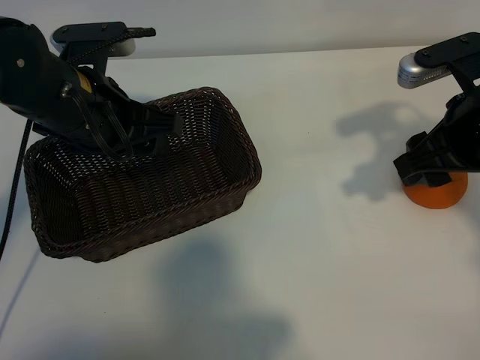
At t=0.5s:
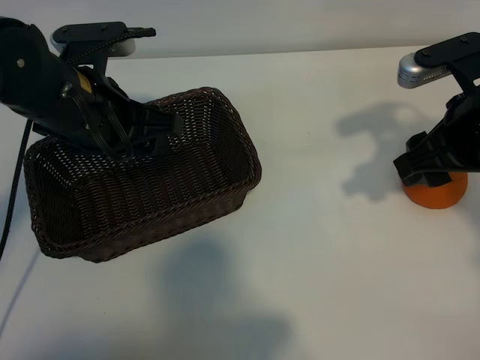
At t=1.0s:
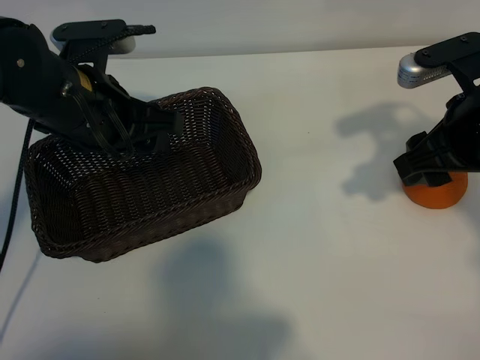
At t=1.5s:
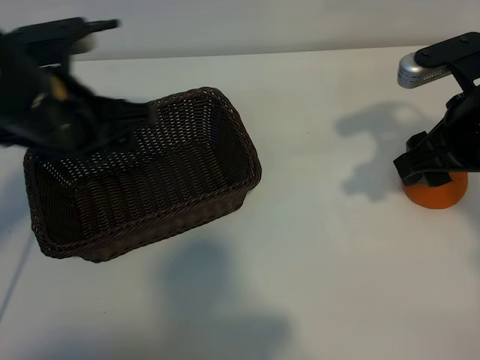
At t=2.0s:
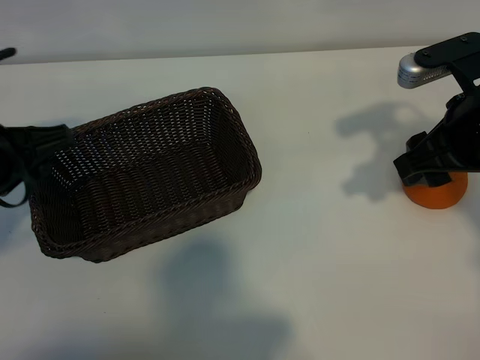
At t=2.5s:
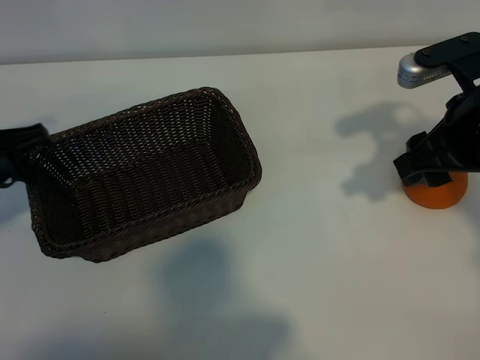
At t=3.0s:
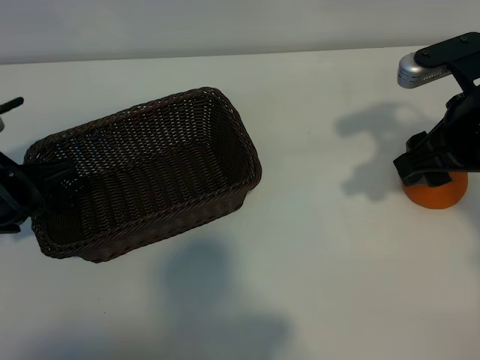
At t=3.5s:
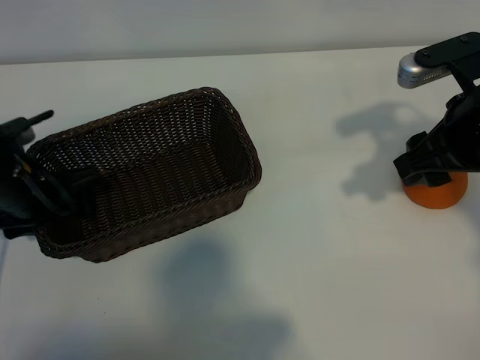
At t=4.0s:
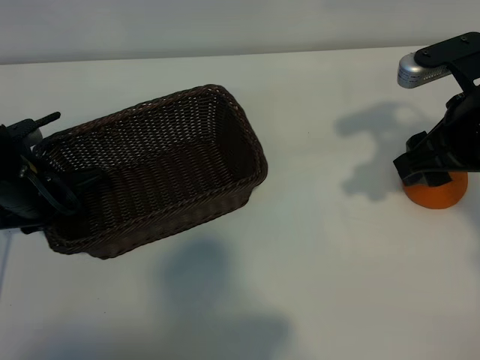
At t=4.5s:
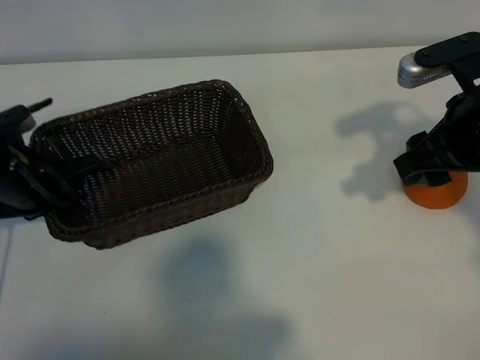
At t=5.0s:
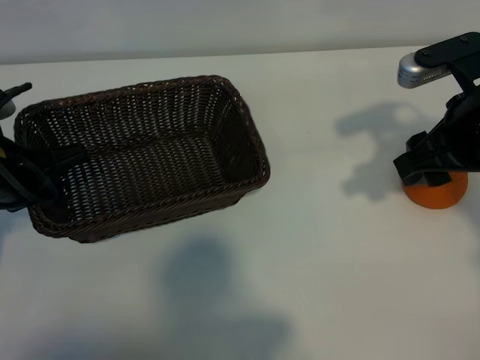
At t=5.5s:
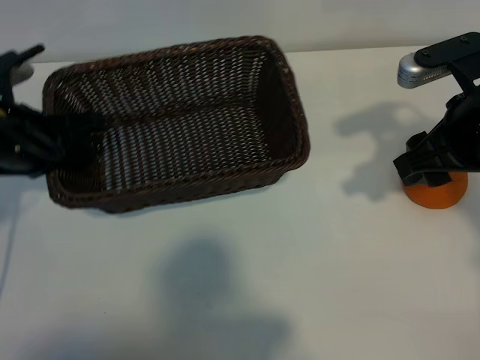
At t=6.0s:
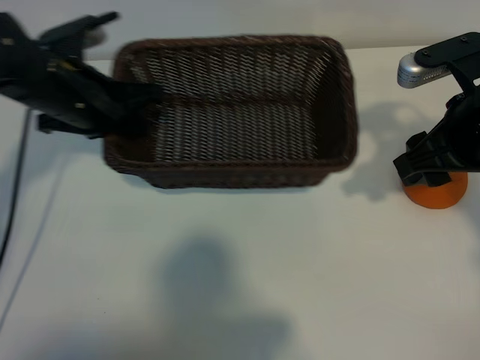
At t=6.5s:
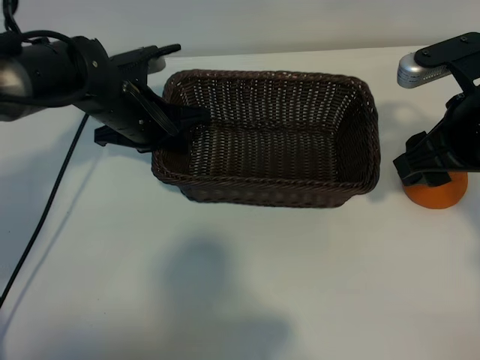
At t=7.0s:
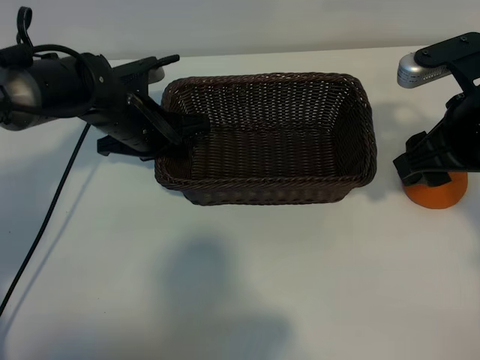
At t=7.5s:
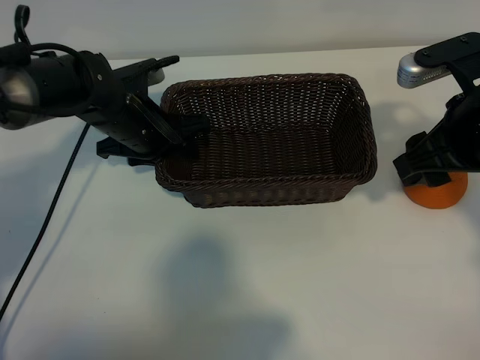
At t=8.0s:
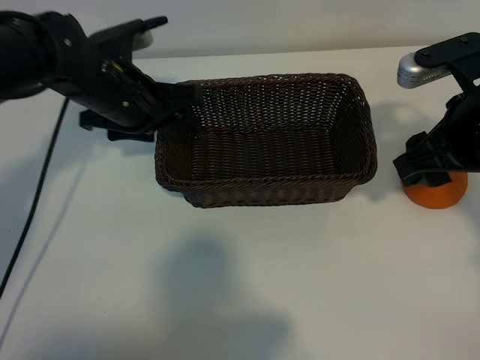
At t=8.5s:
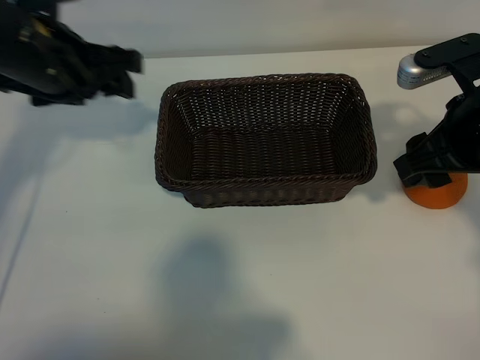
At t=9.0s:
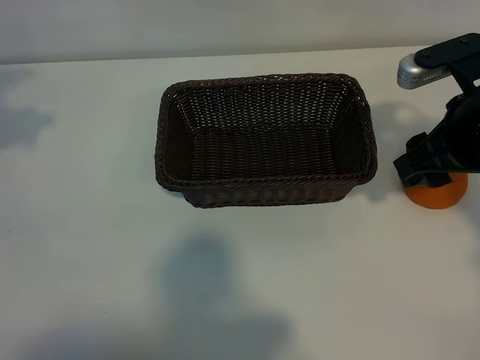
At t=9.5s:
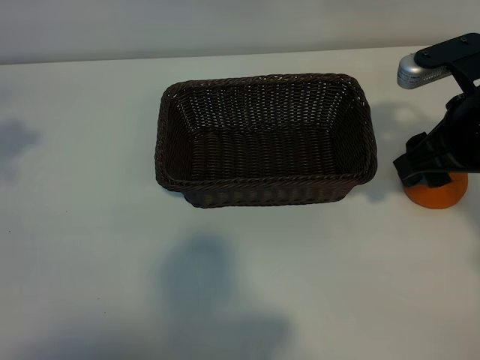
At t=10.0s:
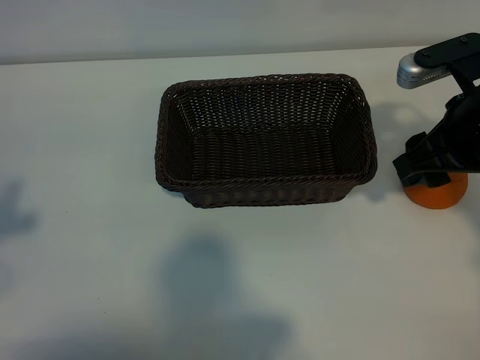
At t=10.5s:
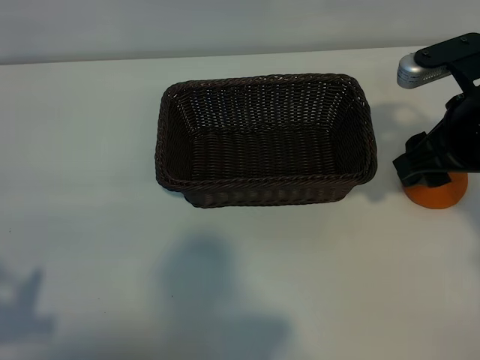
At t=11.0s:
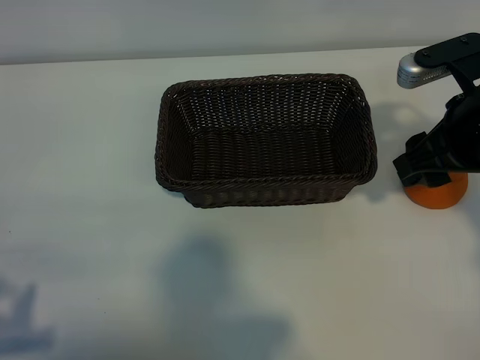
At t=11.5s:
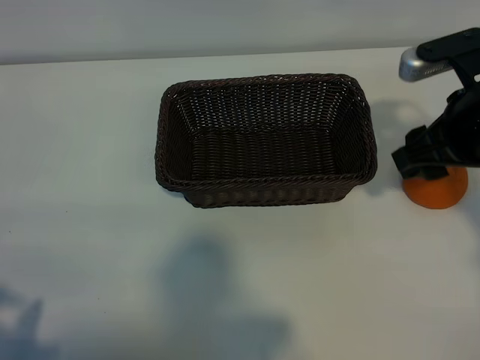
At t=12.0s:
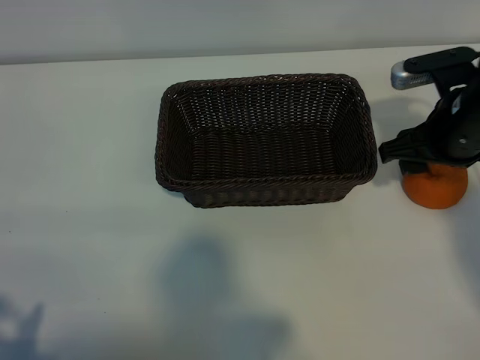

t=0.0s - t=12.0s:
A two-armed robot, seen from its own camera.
Task of the whole recording: pick up the orange and put it into the basket.
Step, t=1.0s - t=4.0s: Grasp the basket with left gripper.
Step, t=4.5s - t=7.0s: Place the basket in the center of view with left gripper.

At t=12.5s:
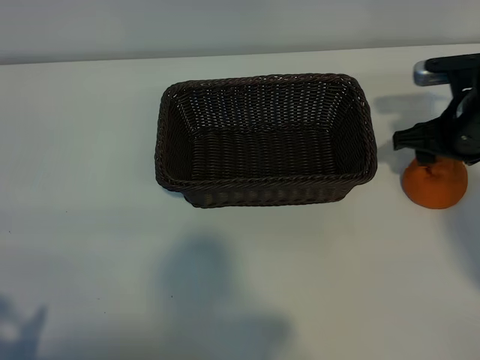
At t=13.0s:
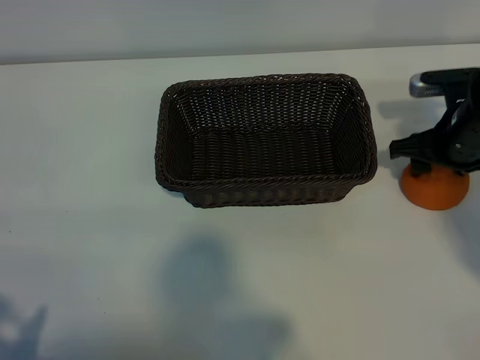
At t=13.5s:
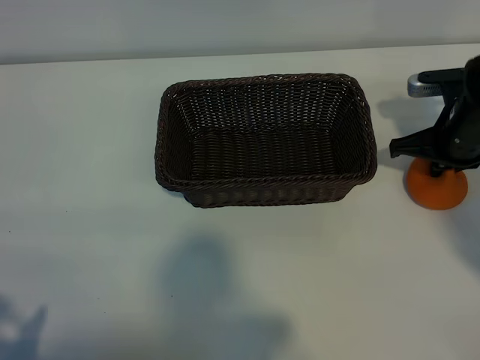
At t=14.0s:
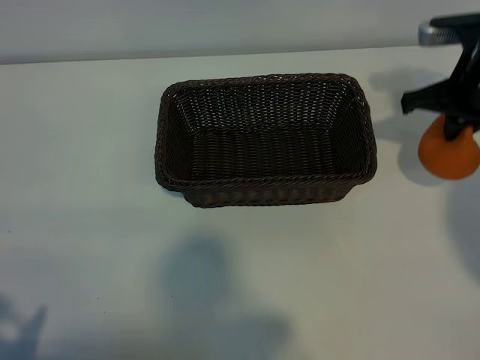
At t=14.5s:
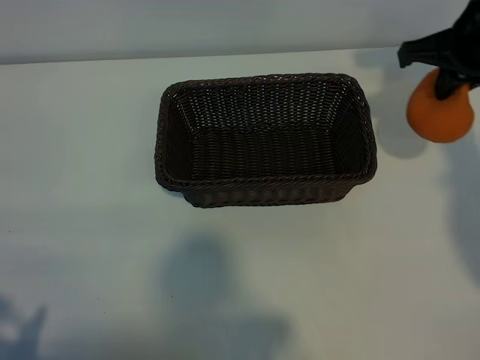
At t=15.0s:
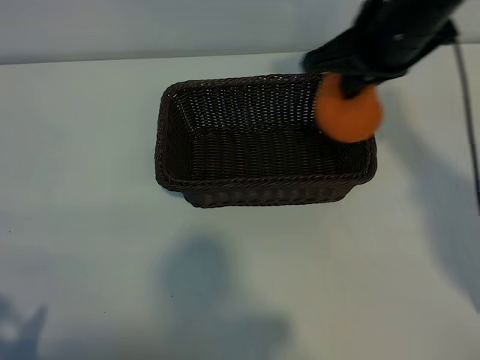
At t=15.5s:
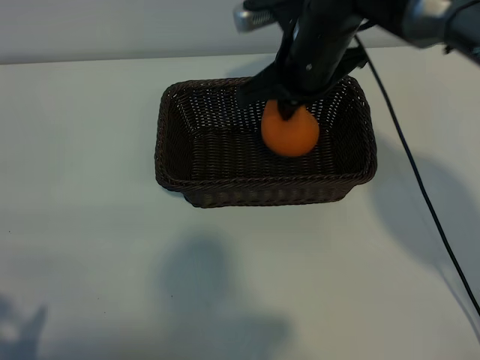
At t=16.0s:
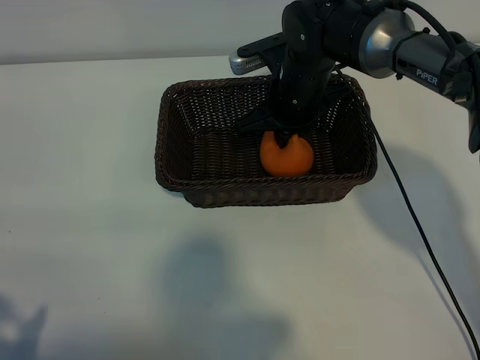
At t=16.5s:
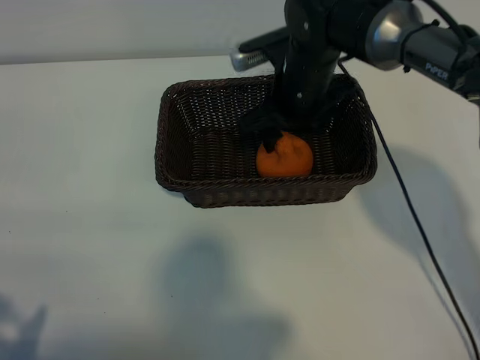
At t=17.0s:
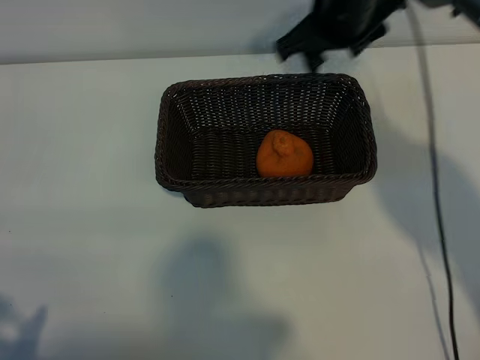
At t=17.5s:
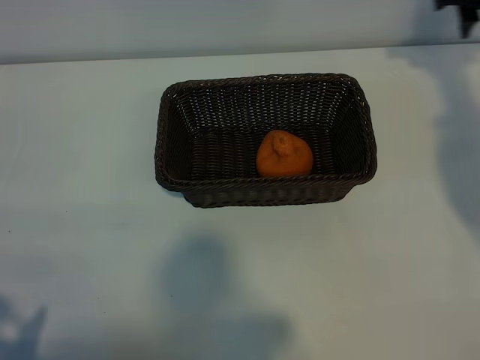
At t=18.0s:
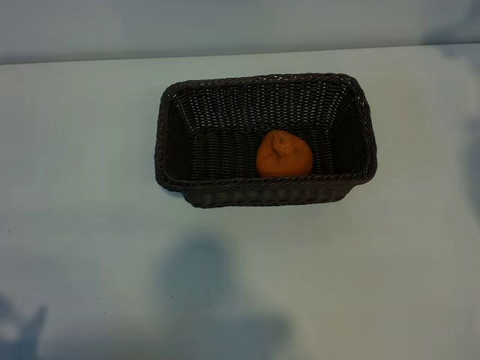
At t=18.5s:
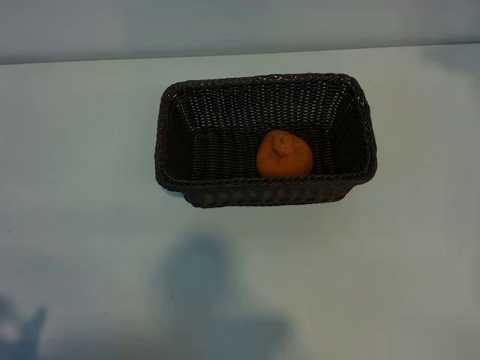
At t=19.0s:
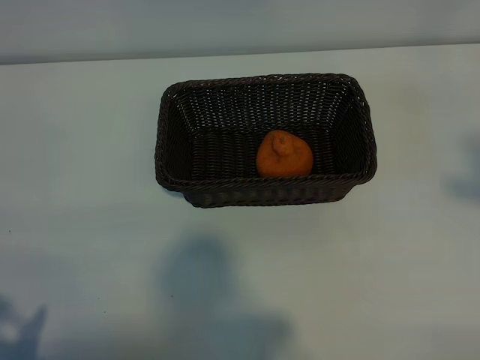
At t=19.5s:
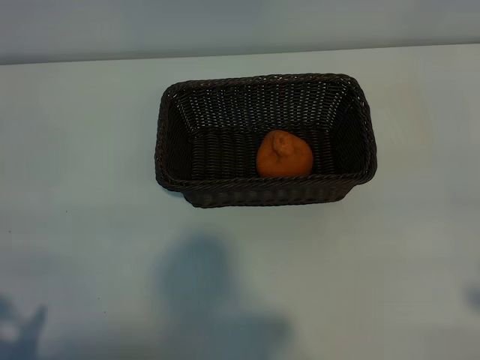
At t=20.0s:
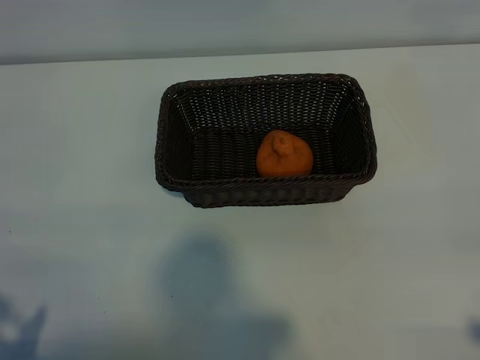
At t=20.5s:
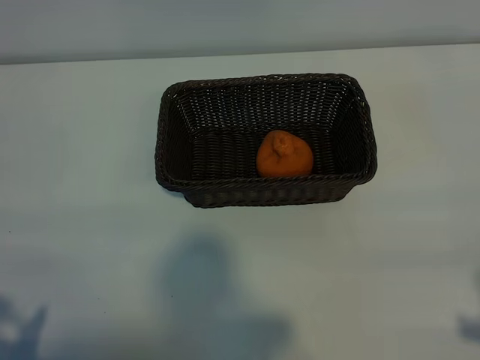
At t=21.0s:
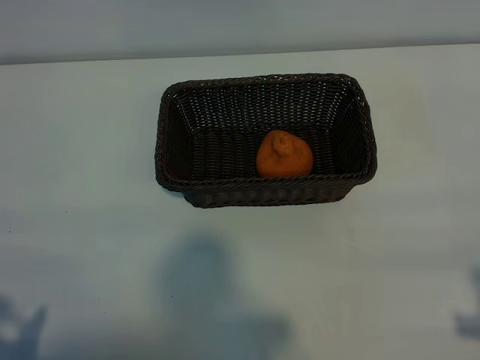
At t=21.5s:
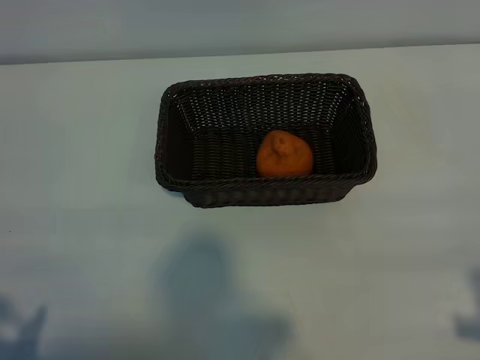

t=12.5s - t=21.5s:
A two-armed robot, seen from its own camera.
Task of the whole recording: pick up the orange and put it into the basket.
Step, t=13.5s - t=16.5s: Place the orange in the basket with right gripper.
